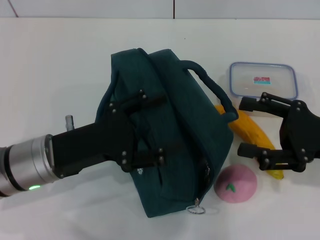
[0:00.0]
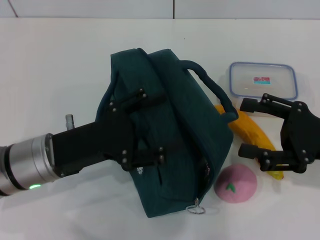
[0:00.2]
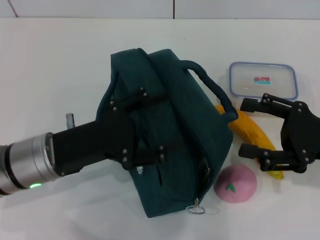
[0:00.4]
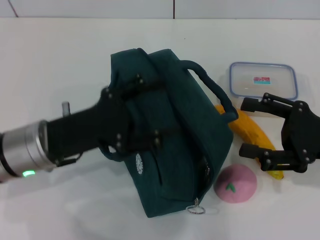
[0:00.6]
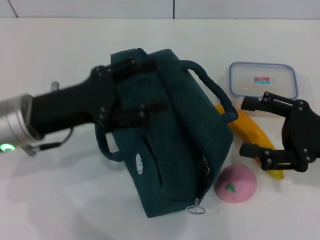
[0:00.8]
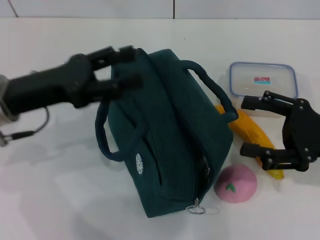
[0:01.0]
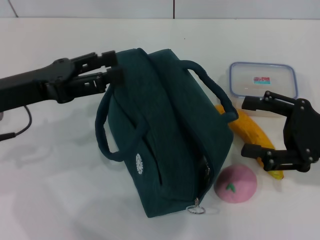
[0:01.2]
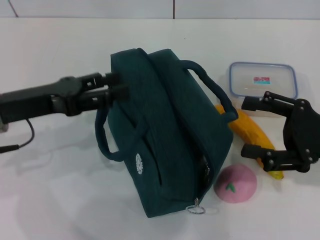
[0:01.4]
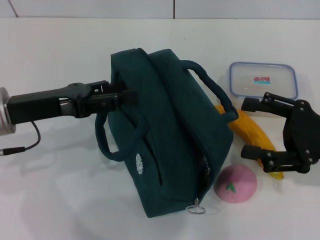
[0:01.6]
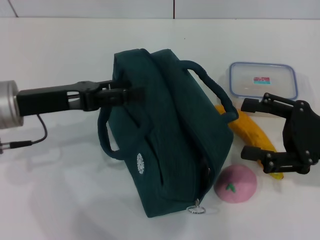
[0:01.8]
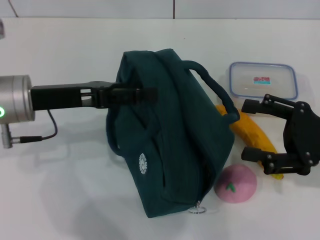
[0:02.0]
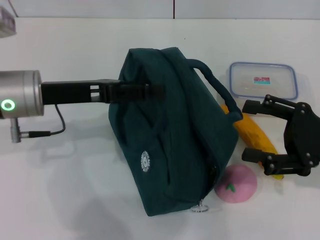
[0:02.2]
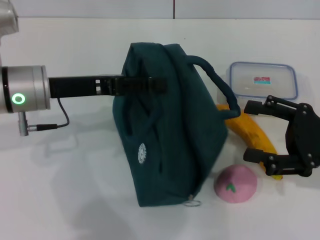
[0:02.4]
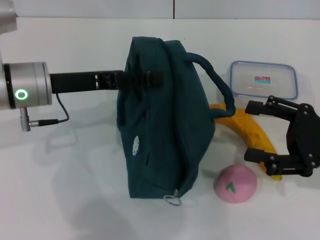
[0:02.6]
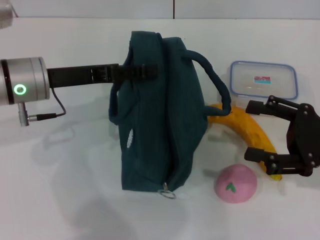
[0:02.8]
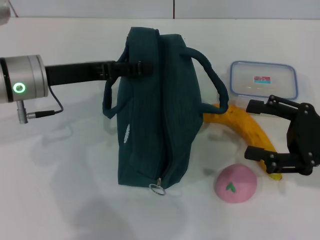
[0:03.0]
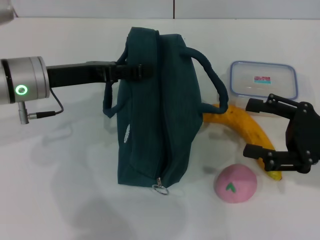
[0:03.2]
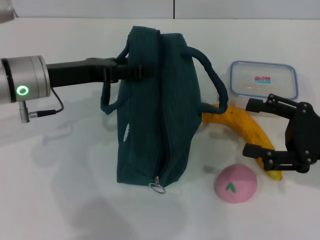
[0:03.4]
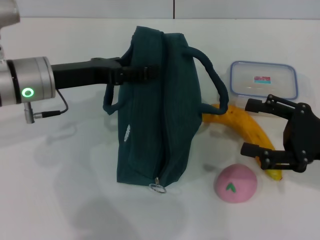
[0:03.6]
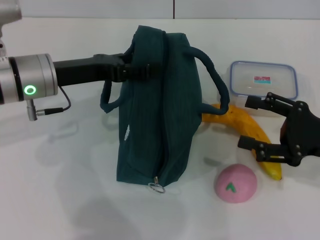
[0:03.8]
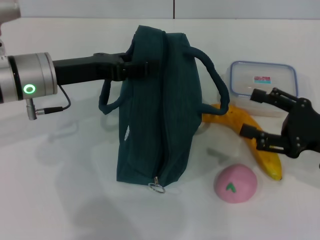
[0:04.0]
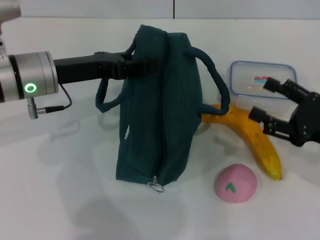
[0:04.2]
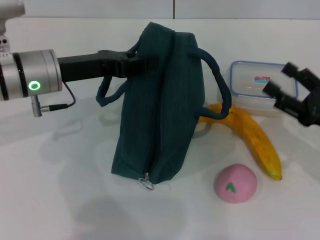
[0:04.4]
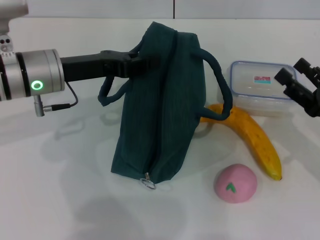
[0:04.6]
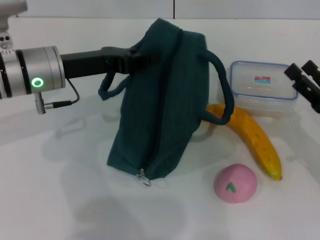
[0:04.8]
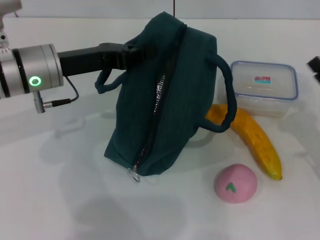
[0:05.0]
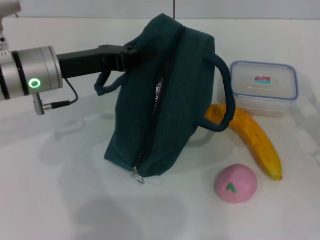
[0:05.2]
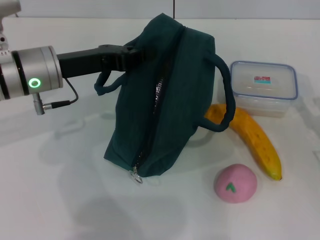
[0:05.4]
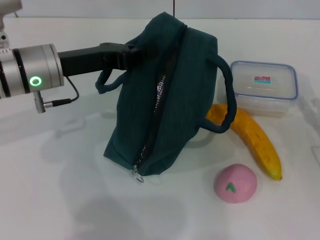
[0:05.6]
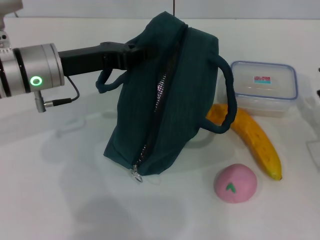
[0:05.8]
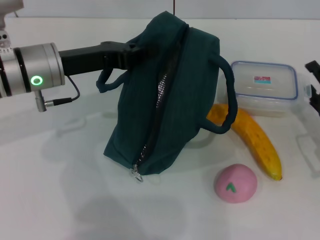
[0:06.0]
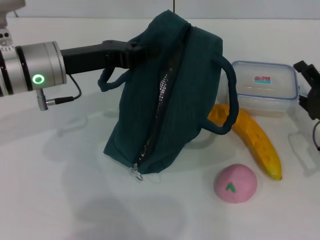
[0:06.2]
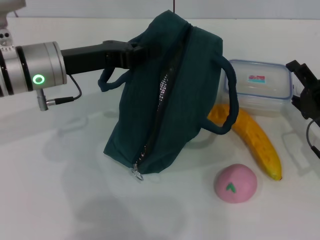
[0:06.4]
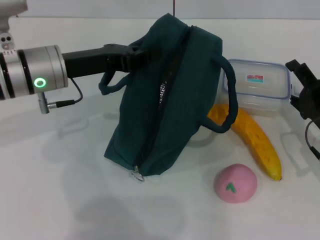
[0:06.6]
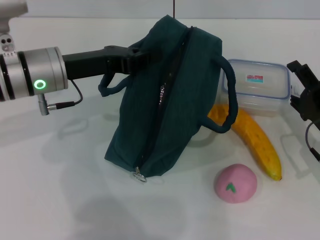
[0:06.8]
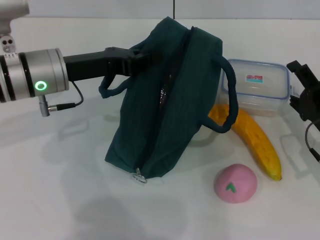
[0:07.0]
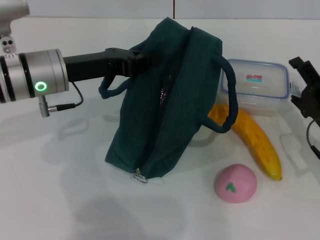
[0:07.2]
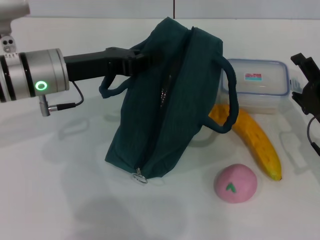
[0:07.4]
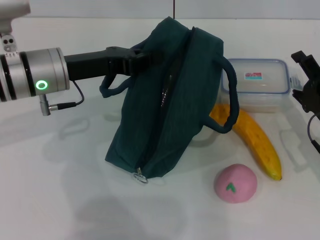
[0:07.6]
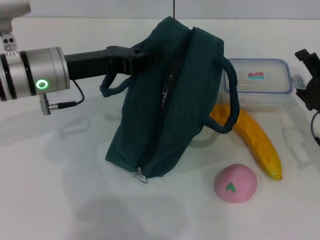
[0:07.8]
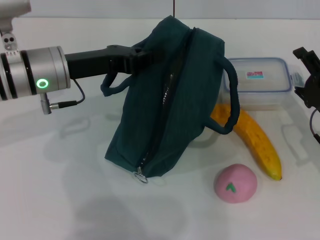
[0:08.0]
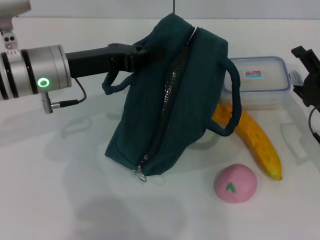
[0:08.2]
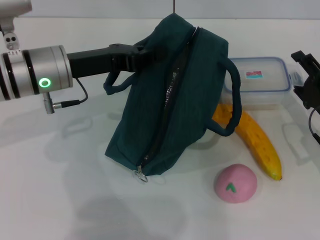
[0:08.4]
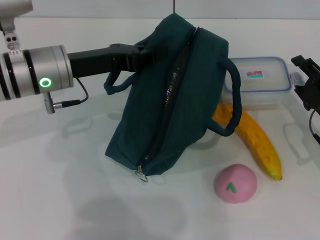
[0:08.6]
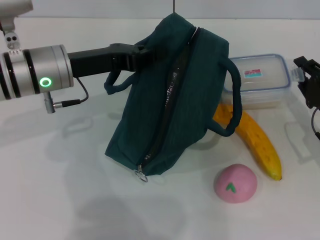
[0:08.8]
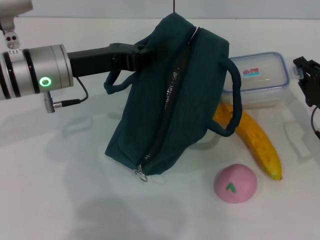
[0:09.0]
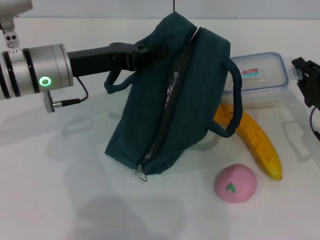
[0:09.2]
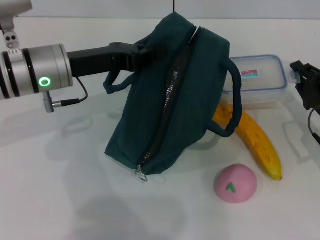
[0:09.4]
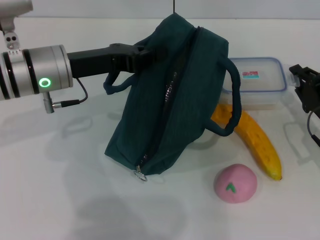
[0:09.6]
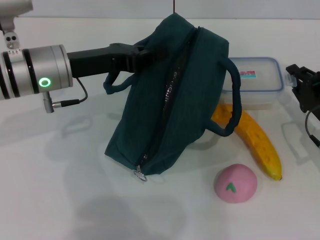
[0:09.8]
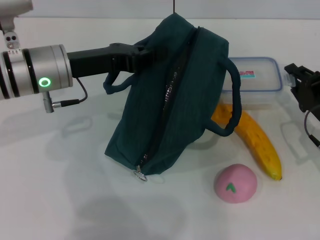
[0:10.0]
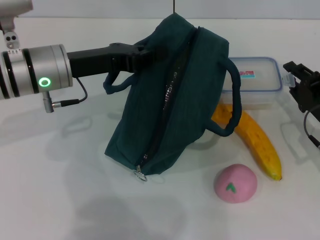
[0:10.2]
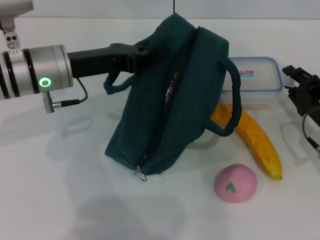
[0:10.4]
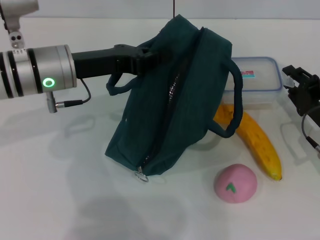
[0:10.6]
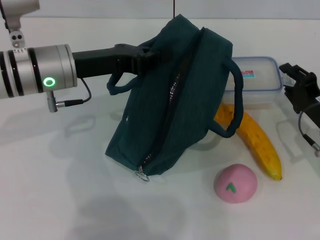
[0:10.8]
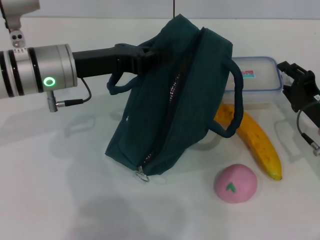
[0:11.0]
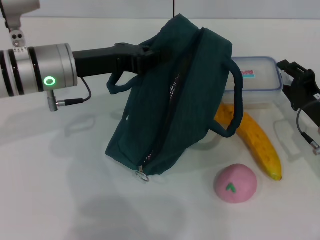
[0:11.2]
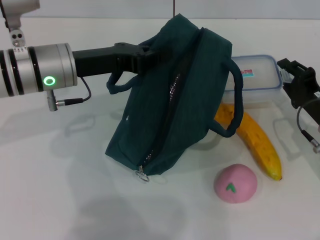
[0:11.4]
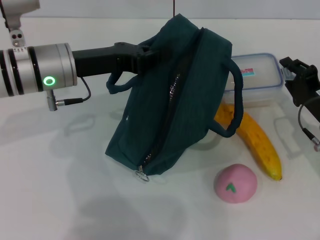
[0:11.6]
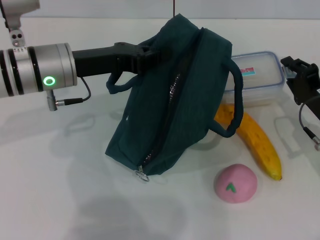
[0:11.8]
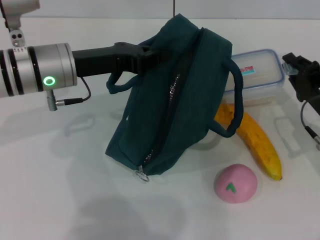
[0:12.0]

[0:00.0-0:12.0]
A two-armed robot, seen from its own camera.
Step, 0:00.0 to 0:05.0: Hold the lunch bag with your left hand.
0:00.0 to 0:01.6: The left gripper shifts some 10 cm to the left and upward.
0:01.6 to 0:03.0: The left gripper is displaced forward by approximately 5 cm.
0:03.0 to 0:04.4: The left gripper closes up.
0:04.4 to 0:06.0: The left gripper closes its fingers.
0:06.0 to 0:07.6: The grippers move only a little.
0:07.6 to 0:09.0: The right gripper closes its fingers.
0:09.0 to 0:12.0: The grippers make only small movements.

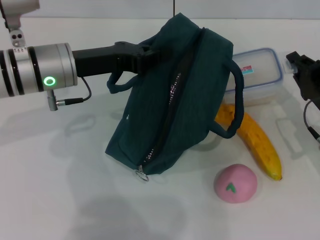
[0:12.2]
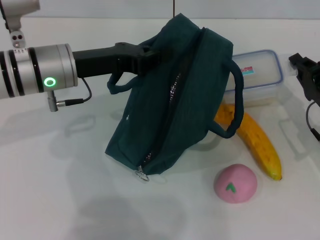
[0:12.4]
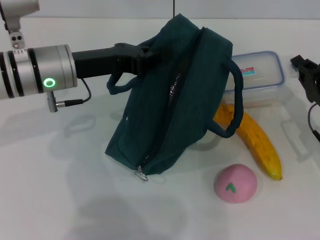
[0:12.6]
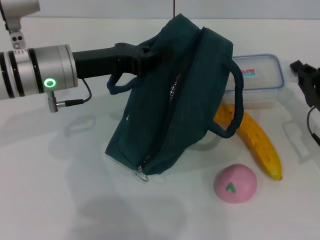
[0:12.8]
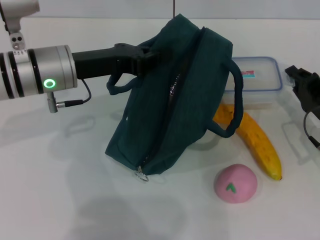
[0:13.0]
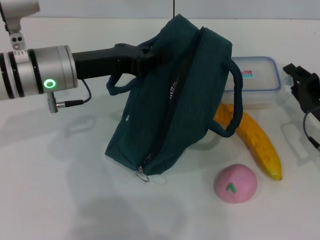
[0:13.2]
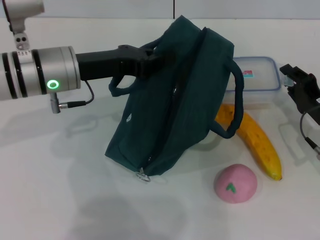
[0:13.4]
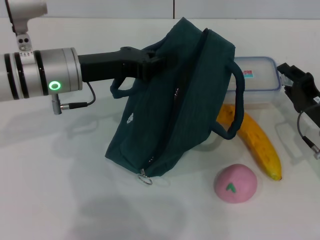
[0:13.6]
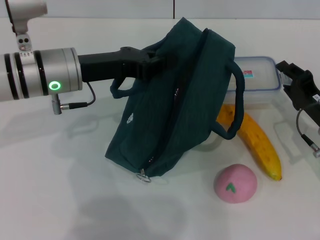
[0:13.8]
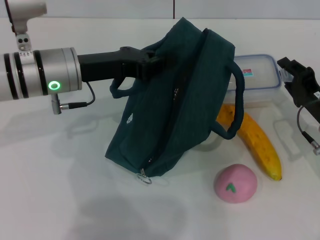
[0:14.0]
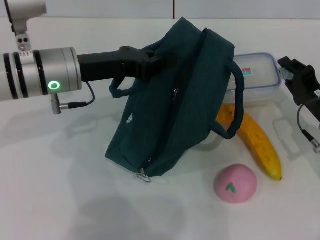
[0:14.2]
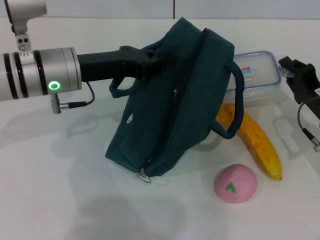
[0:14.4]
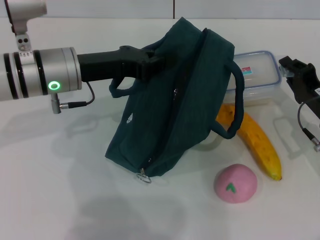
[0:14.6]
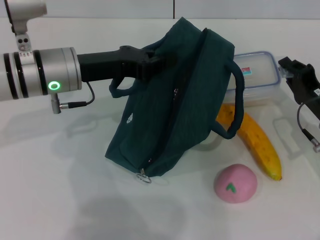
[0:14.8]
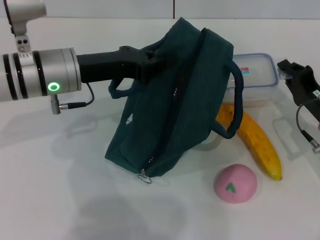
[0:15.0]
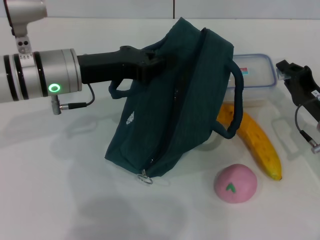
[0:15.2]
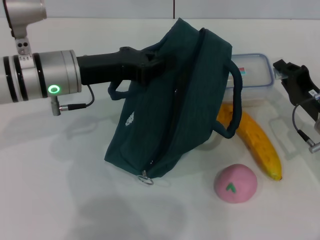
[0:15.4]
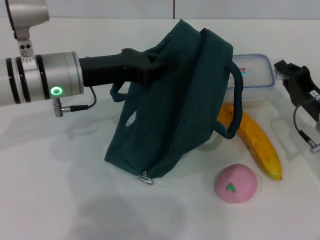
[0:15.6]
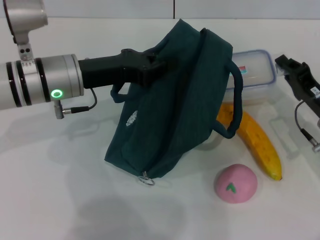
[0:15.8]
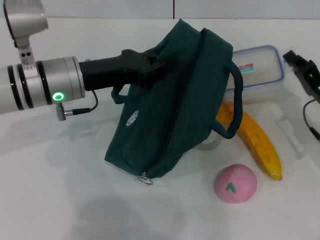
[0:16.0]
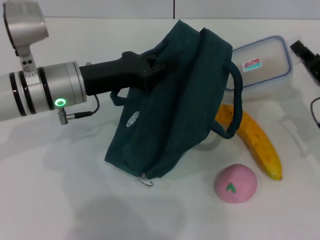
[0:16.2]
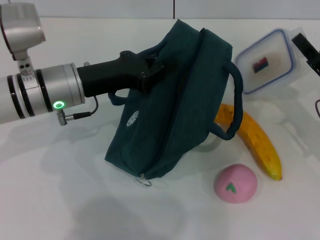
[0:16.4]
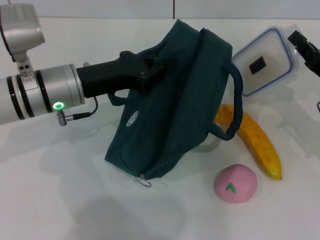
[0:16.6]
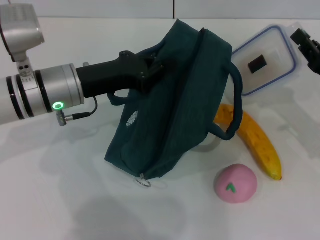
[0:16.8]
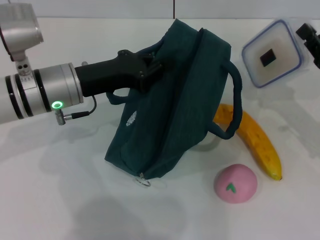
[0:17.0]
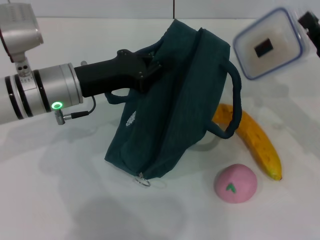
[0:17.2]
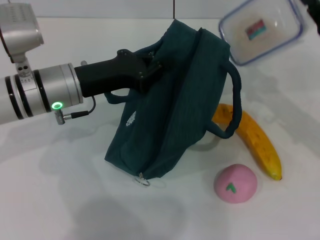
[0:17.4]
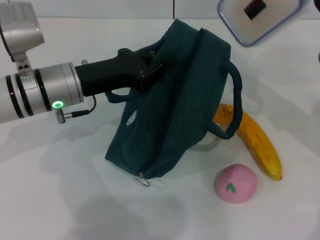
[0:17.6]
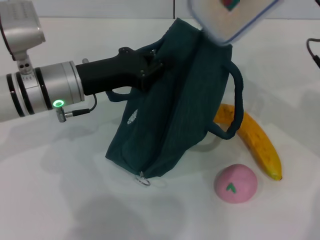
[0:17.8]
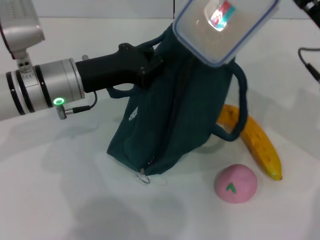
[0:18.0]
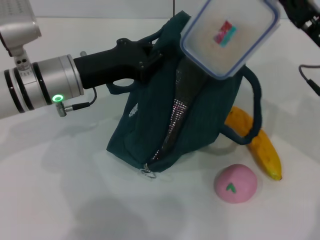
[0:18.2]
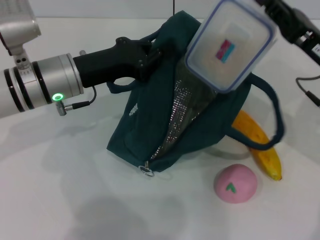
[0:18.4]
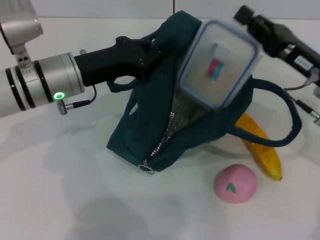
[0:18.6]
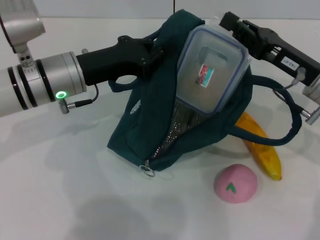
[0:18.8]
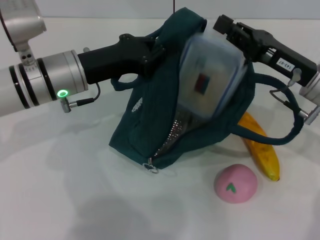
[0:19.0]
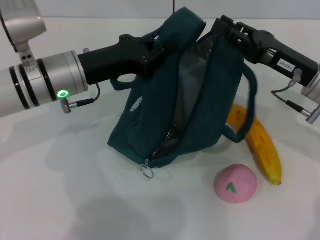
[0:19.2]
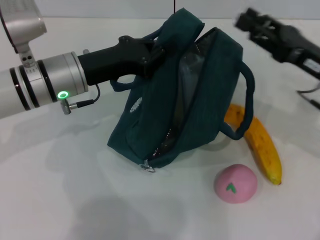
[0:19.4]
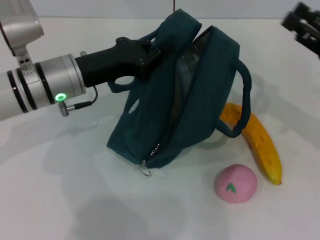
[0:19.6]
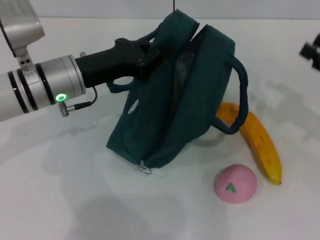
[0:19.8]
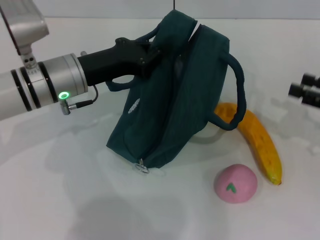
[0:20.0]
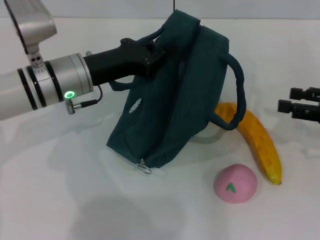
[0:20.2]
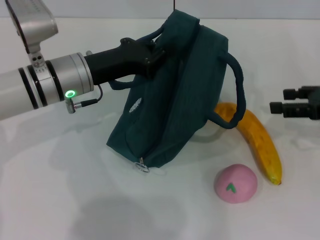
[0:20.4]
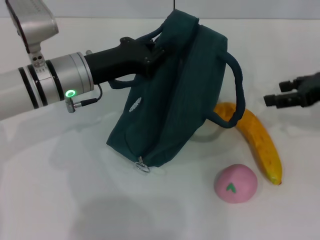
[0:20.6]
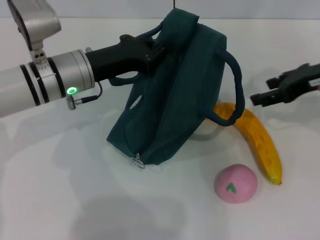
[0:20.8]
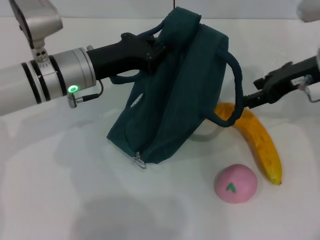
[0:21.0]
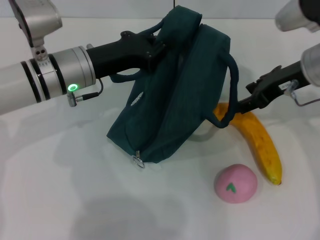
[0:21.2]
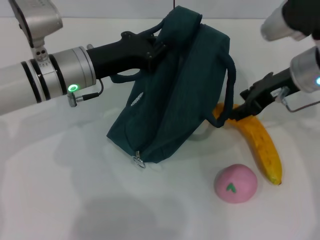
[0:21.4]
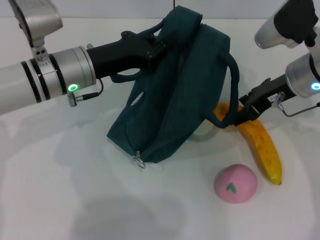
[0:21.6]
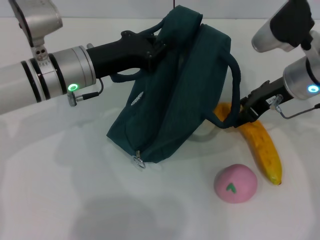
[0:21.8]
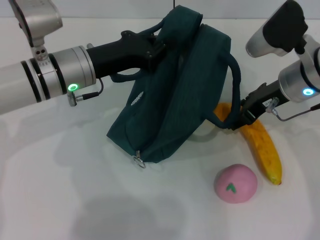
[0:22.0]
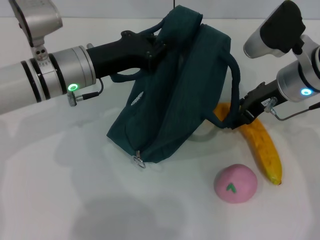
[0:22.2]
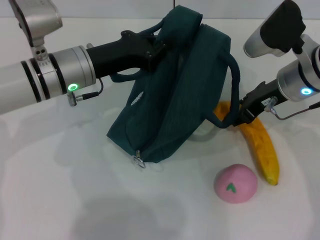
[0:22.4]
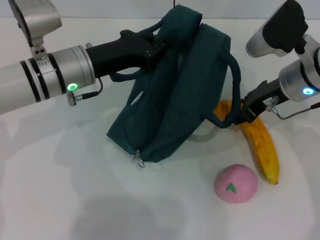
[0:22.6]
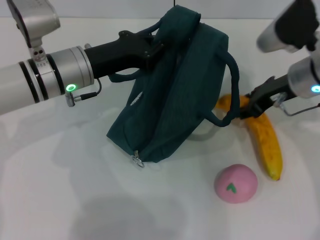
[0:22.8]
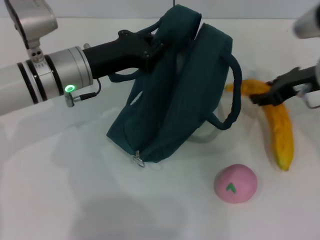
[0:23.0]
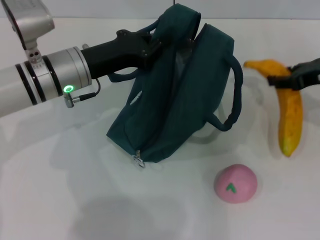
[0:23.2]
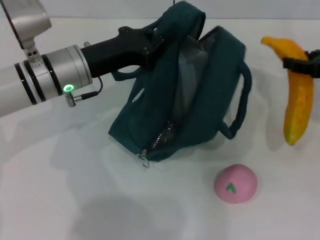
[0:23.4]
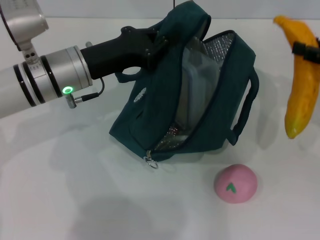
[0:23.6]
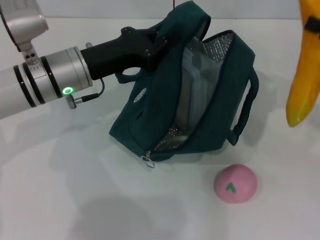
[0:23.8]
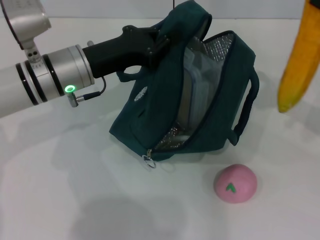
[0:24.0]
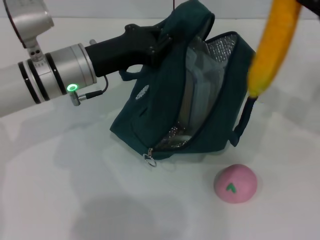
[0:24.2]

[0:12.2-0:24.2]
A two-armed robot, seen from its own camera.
Step, 0:12.2 to 0:15.6: Pick up the lunch box with your right hand.
Step, 0:15.8 to 0:19.2: Place the lunch box into the lunch bag with your right hand.
Step, 0:19.6 to 0:22.4: Take the banana with your right hand.
0:12.2 to 0:13.8: The grippers stay close to where they were, moving slightly.
0:13.8 to 0:15.2: The two grippers keep their place.
0:16.6 to 0:18.2: The right gripper is displaced upward by roughly 5 cm.
0:18.2 to 0:19.8: The right gripper heads to the right, covering some 10 cm, and opens its fingers.
0:19.8 to 0:21.2: The right gripper shifts approximately 15 cm to the left, forward and upward.
0:21.2 to 0:22.6: The grippers move only a little.
0:22.6 to 0:24.2: The right gripper goes roughly 10 cm to the right.
